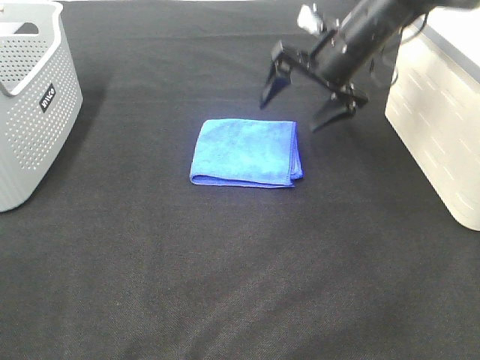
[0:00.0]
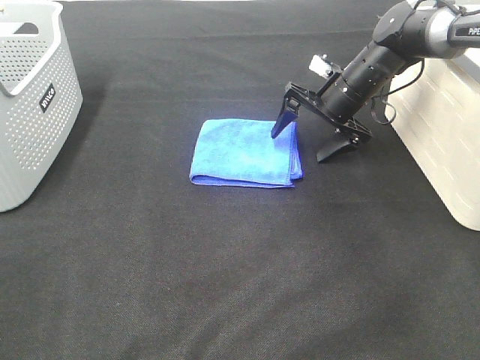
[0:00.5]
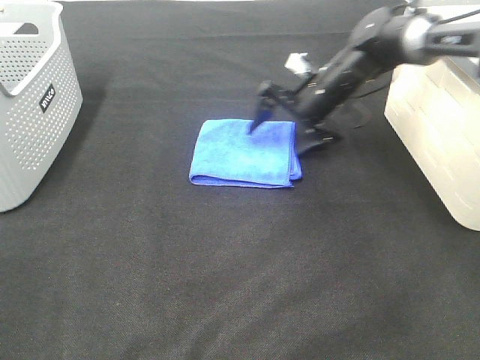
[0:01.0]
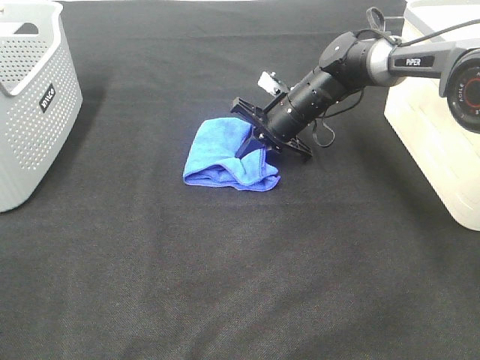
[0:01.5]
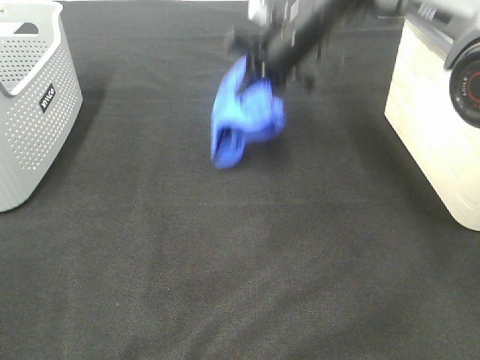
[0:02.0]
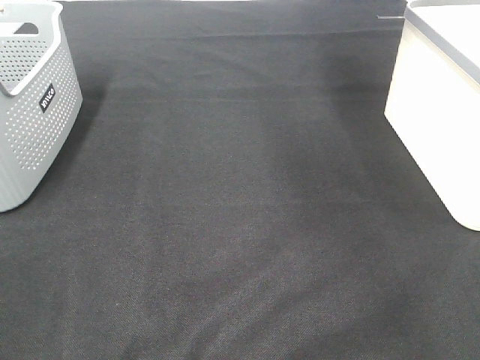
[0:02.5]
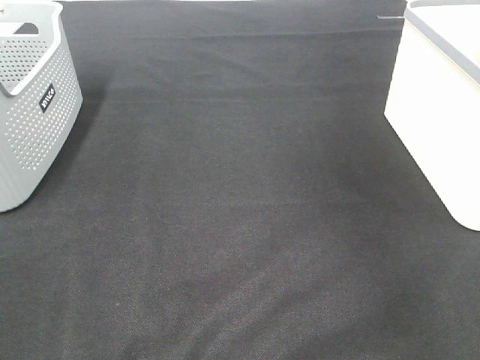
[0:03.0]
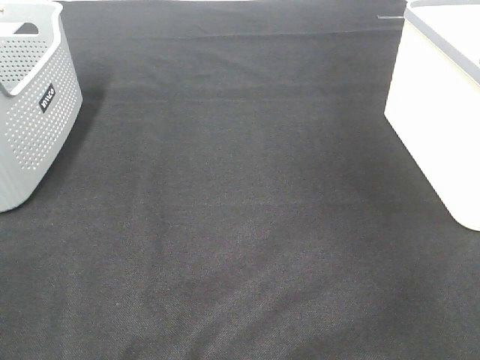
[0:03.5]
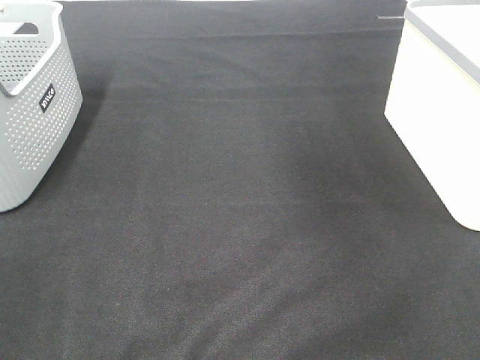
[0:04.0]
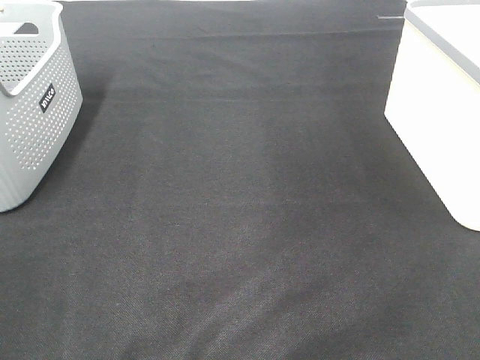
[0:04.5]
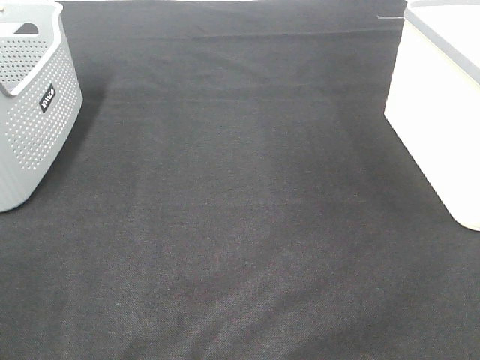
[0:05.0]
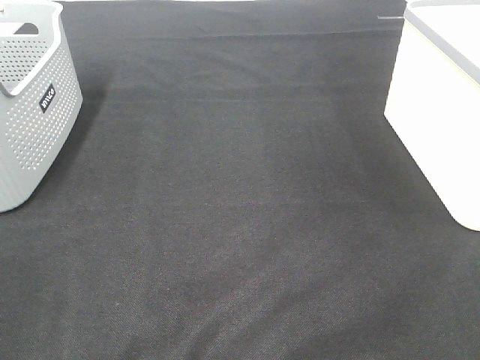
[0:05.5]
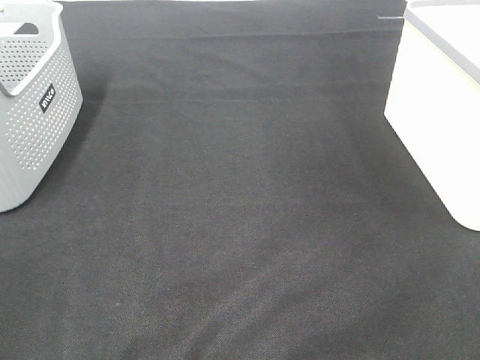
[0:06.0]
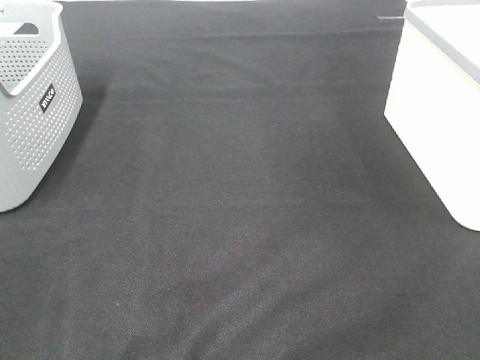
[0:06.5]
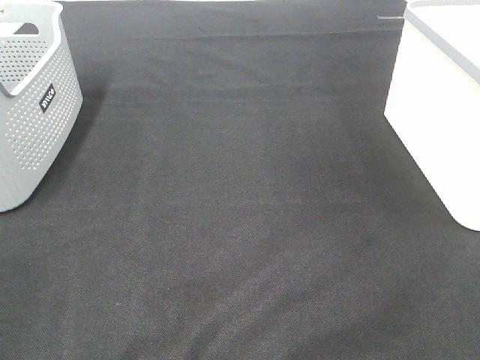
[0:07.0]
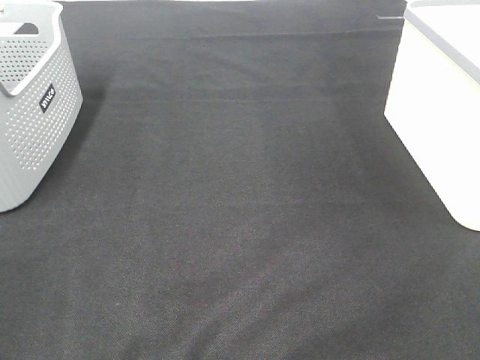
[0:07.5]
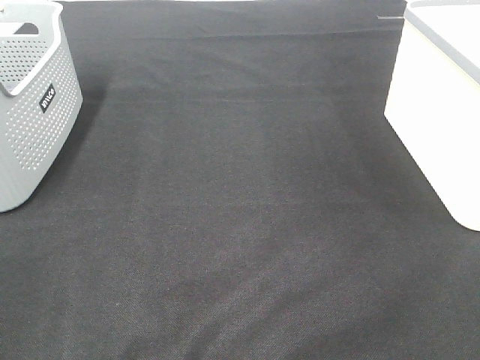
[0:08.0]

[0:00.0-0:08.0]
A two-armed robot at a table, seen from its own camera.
Step, 0:01.5 to 0:03.5: Right hand: place the blue towel in right basket.
0:00.0 to 0:02.0: The right gripper heads to the left, covering roughly 5 cm, travels downward and back again, roughly 10 cm each way, and closes its fingers.
0:02.0 to 0:04.0: The right gripper heads to the right and upward, covering roughly 30 cm, and opens its fingers.

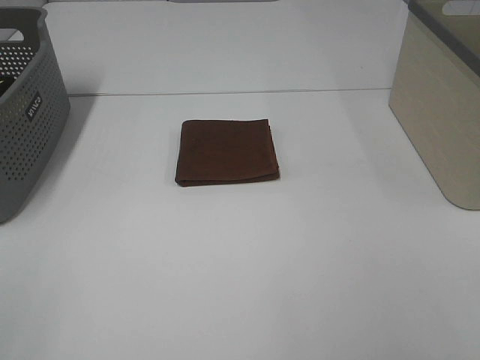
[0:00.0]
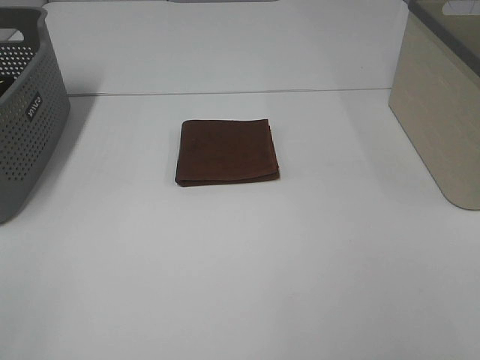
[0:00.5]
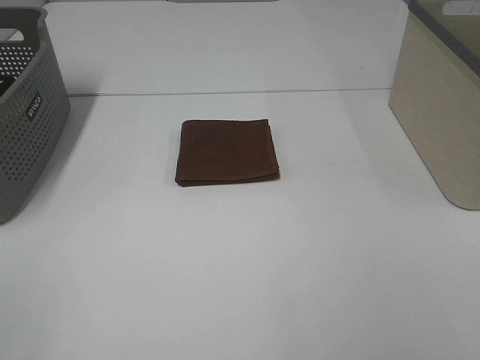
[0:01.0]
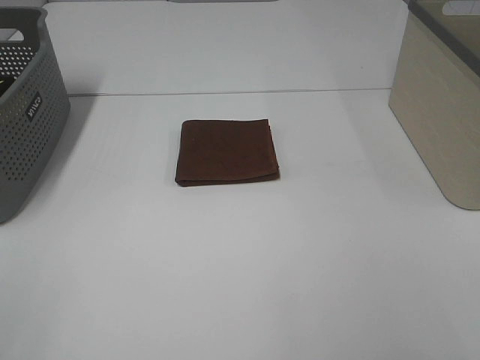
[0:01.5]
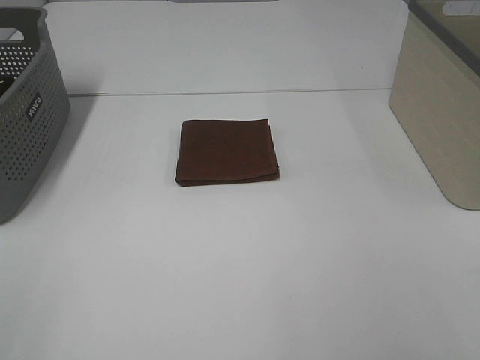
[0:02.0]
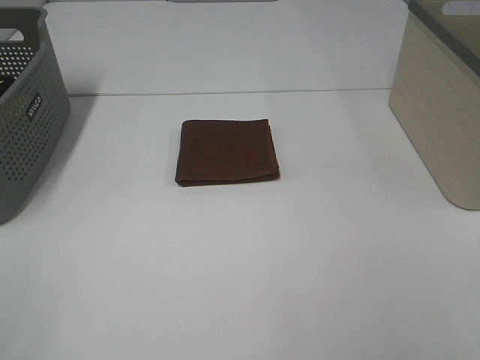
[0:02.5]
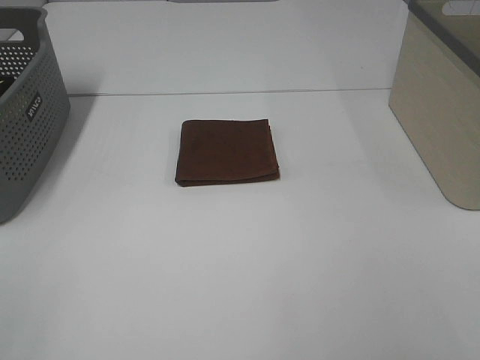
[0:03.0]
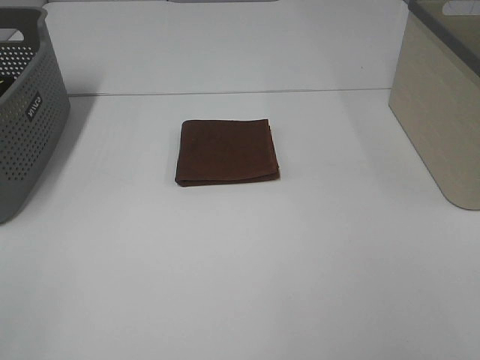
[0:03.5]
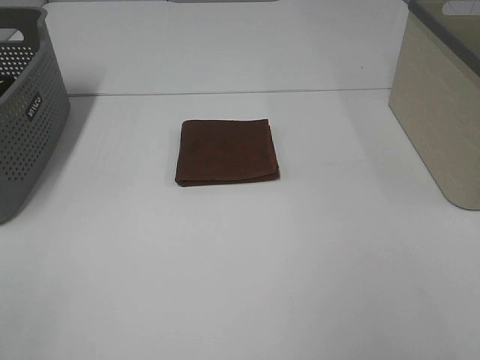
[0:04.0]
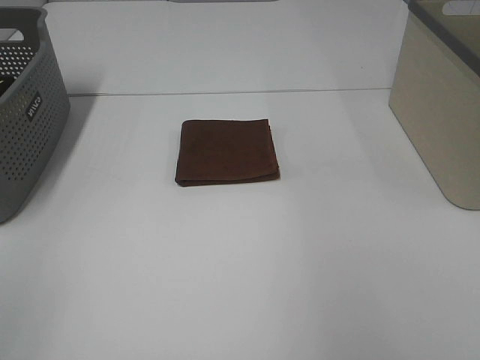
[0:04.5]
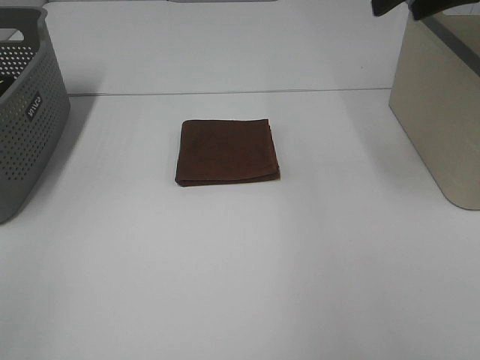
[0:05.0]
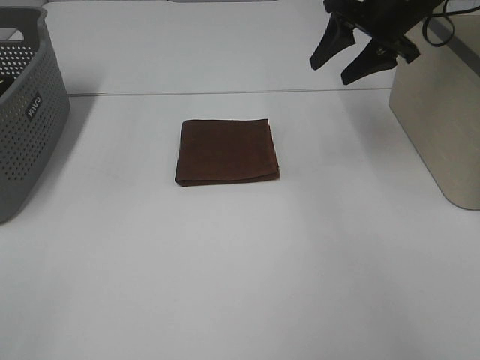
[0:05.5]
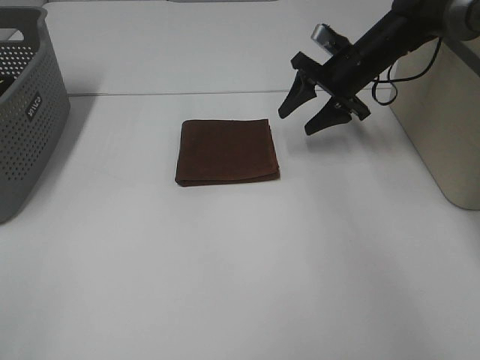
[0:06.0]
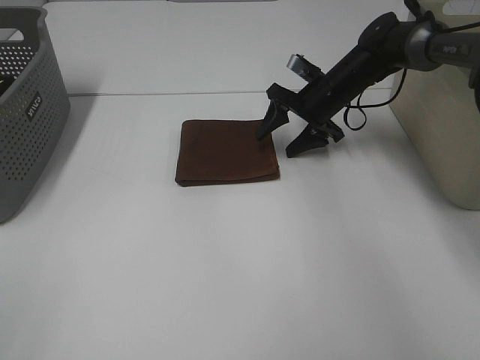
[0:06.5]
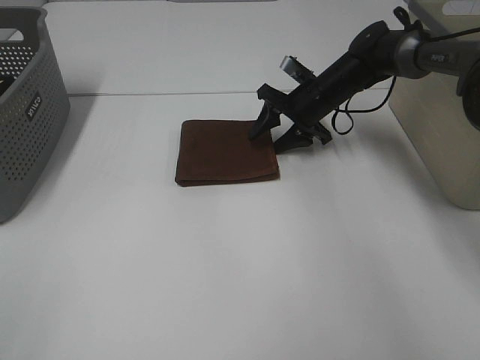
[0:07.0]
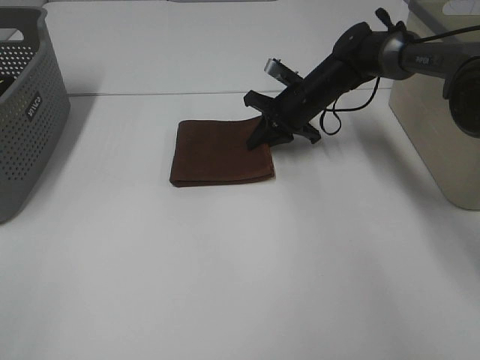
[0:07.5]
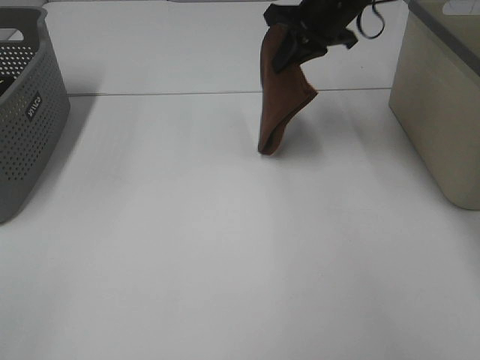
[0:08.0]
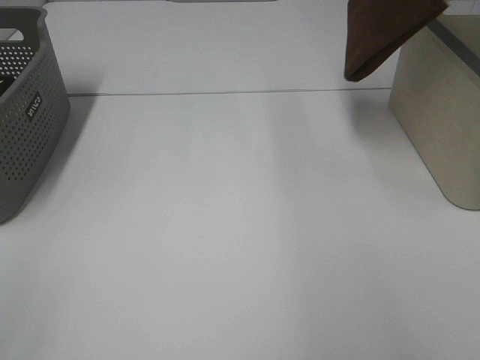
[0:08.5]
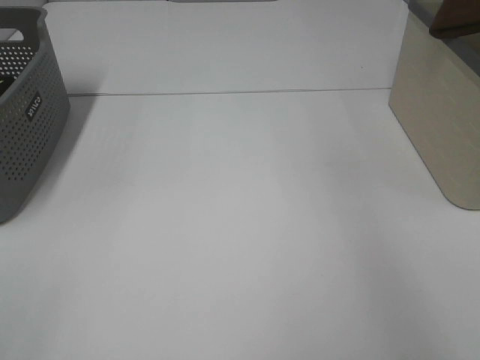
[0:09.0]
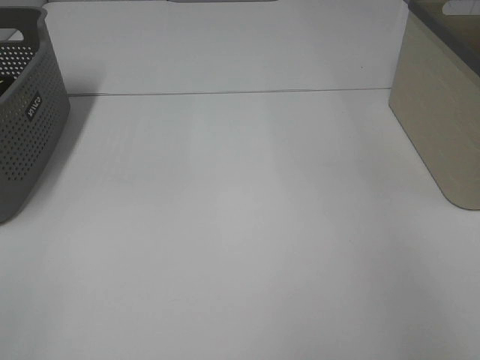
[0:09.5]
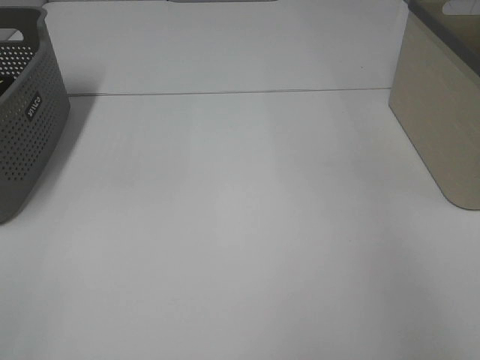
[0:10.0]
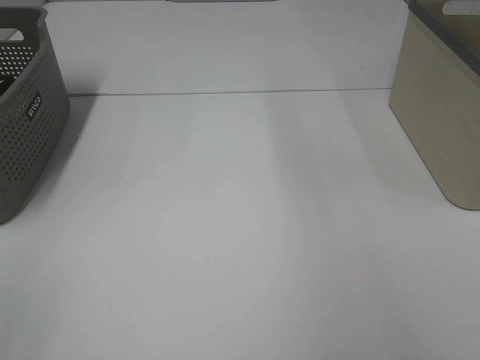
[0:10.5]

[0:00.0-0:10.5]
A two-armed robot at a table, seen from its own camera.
Step, 0:00.0 to 0:07.0: Right hand: grab the folded brown towel.
Step, 0:07.5 to 0:09.5: Right hand: place the brown towel in right basket.
0:00.0 to 0:02.0: Both grippers stay about where they are.
0:04.0 to 0:06.5: The right gripper is displaced forward and downward by some 50 cm.
0:06.5 to 0:08.5: The right gripper travels upward by roughly 30 cm, and closes up.
0:08.5 to 0:10.5: The right gripper goes to the right and returns, approximately 15 cm each way, and opens up.

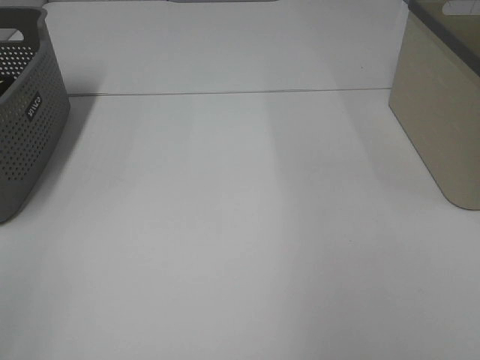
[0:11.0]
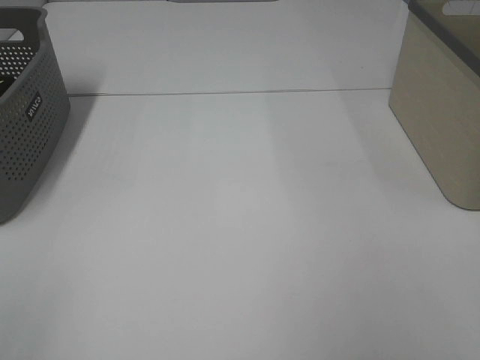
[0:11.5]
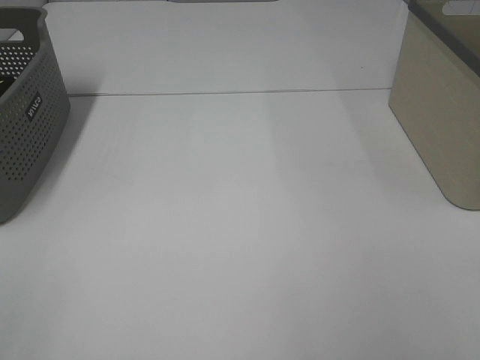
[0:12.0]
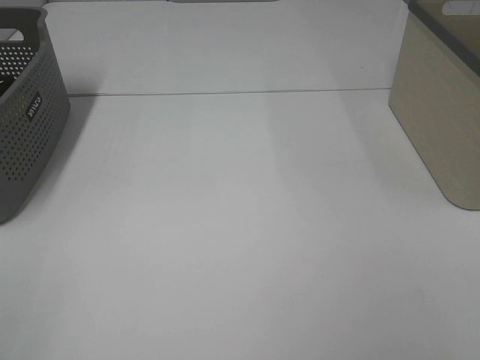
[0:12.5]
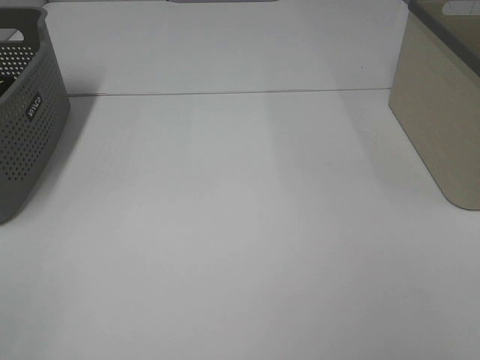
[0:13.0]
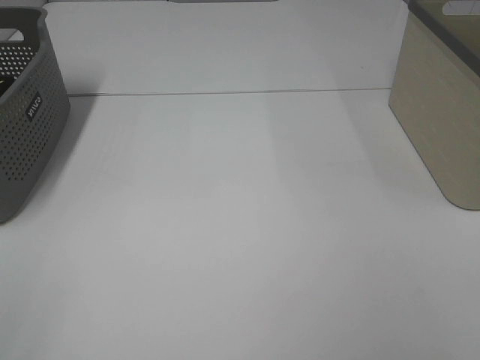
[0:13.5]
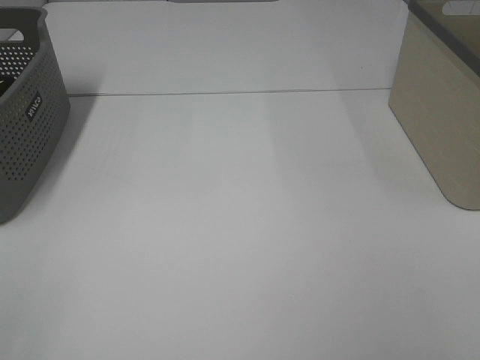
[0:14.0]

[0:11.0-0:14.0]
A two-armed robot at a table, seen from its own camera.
0:12.5 to 0:14.0: The two grippers keep their place.

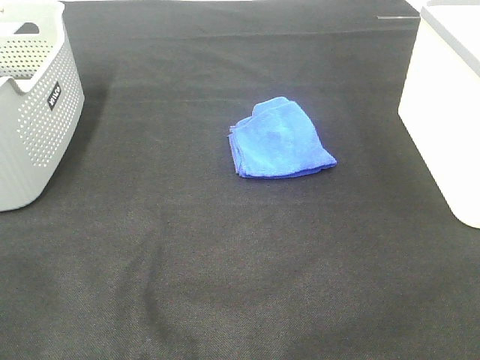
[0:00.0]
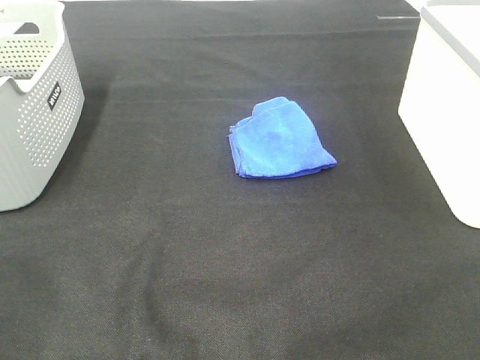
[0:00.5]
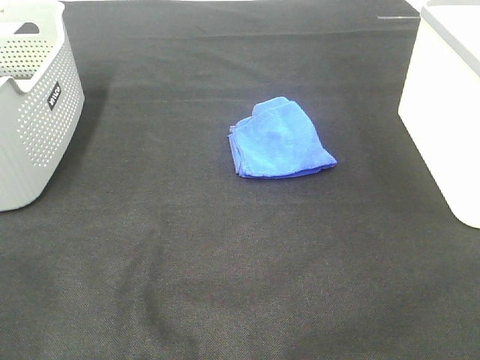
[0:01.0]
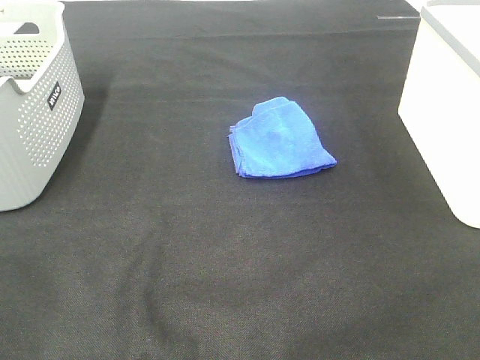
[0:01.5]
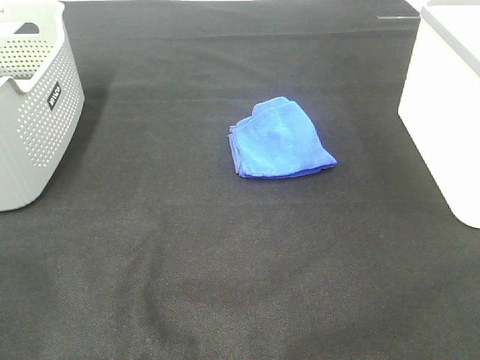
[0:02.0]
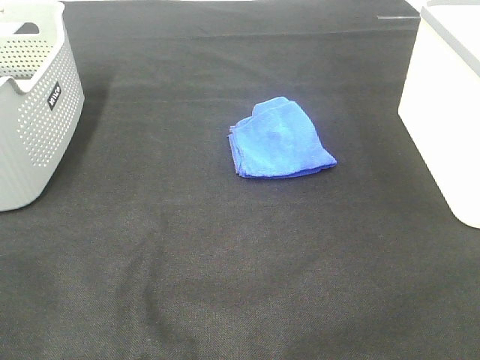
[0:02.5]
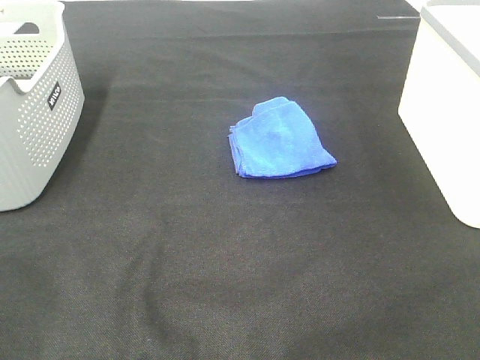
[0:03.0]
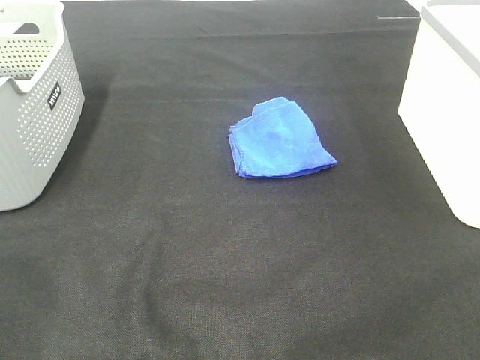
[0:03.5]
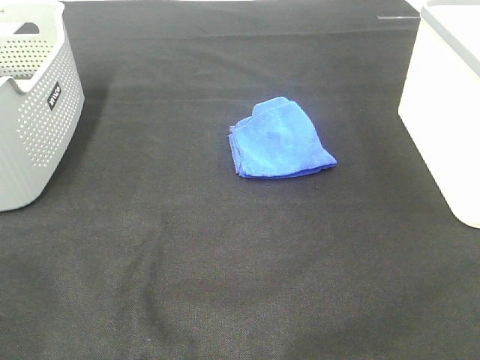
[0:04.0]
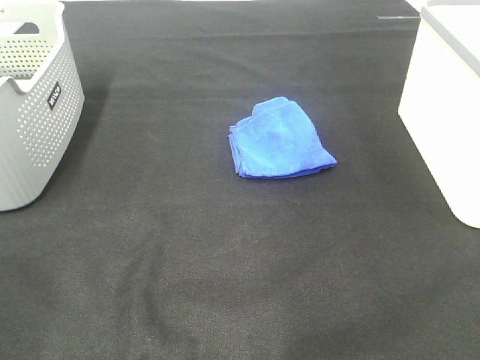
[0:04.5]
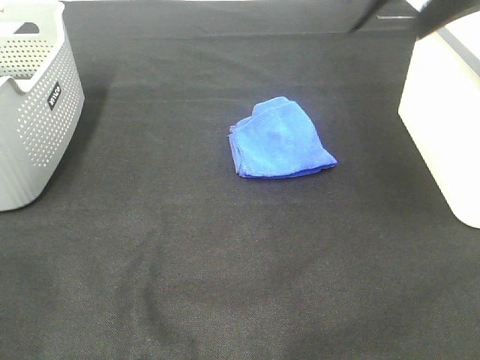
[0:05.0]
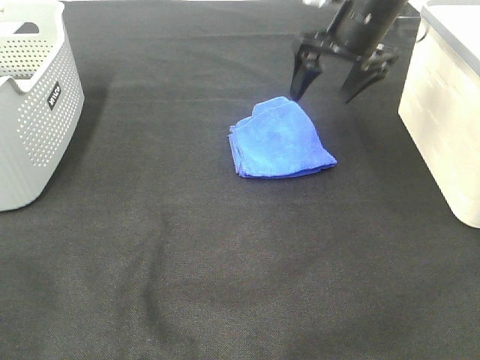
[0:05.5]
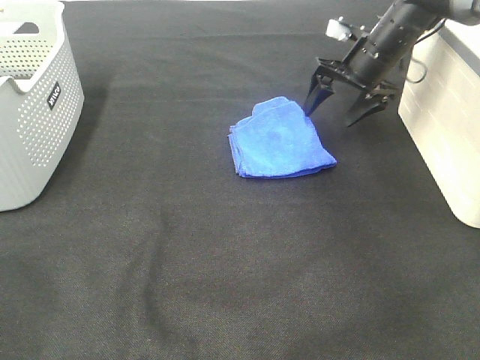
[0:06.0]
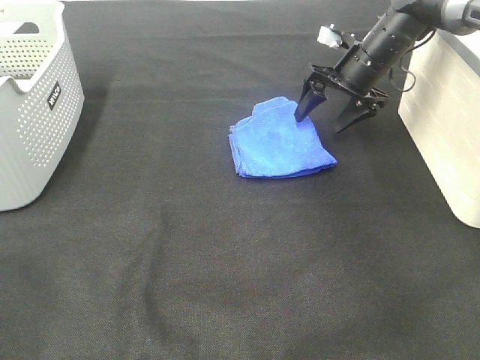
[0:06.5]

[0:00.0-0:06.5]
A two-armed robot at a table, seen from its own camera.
0:00.0 to 0:02.0: The two grippers keep their place.
0:04.5 to 0:06.5: The right gripper moves downward and forward, roughly 40 cm.
